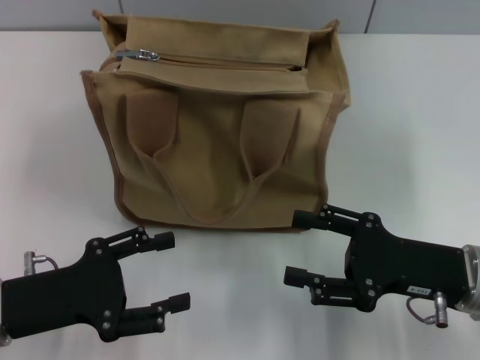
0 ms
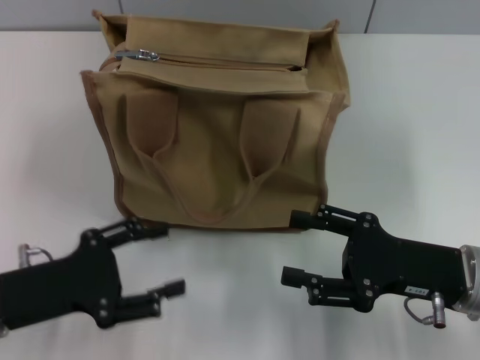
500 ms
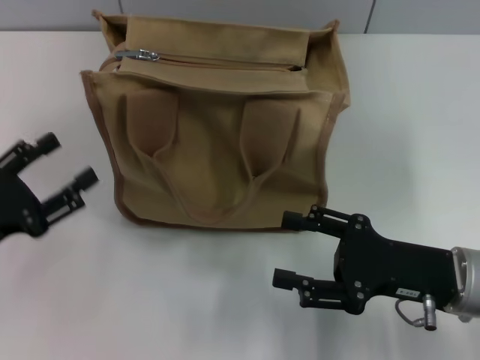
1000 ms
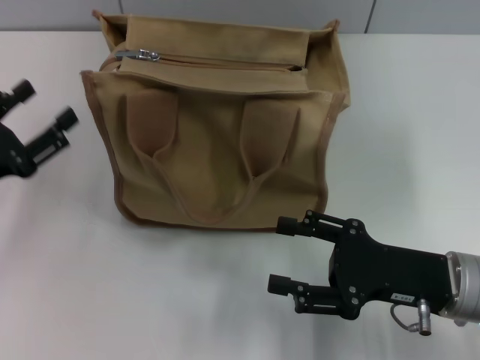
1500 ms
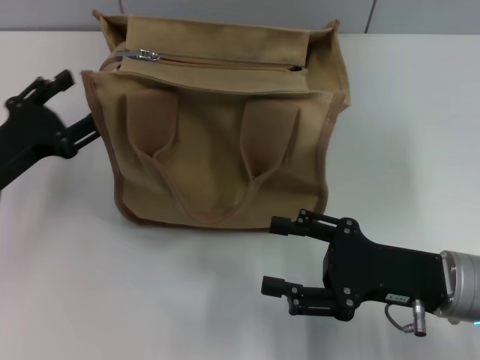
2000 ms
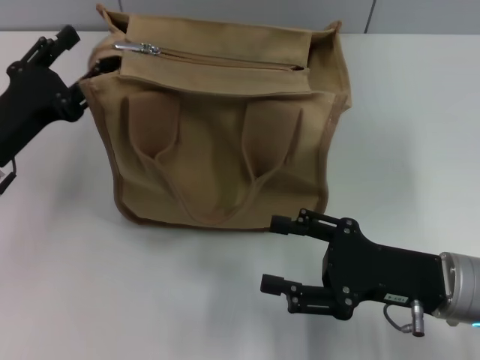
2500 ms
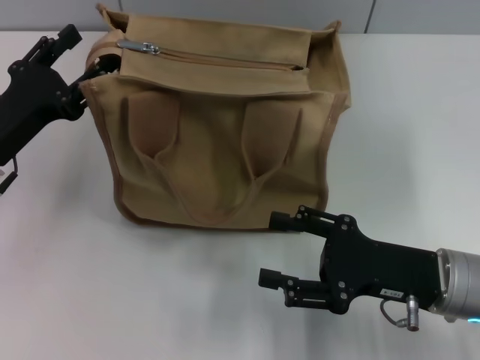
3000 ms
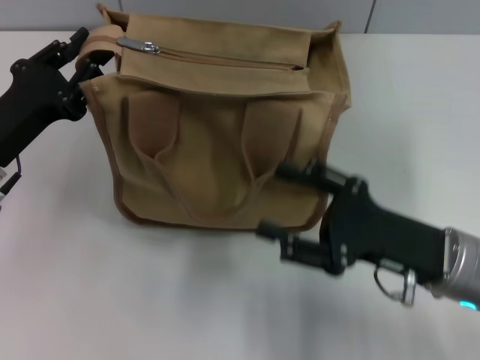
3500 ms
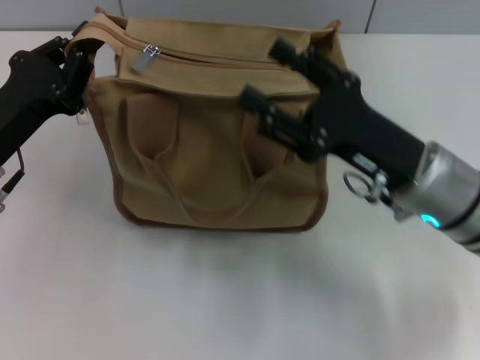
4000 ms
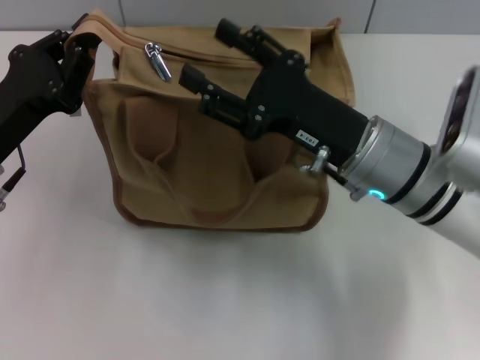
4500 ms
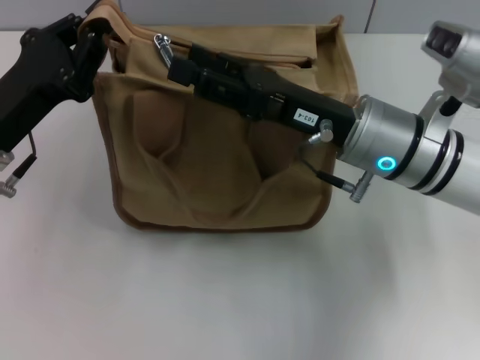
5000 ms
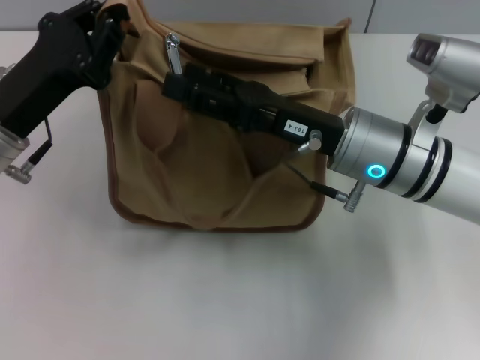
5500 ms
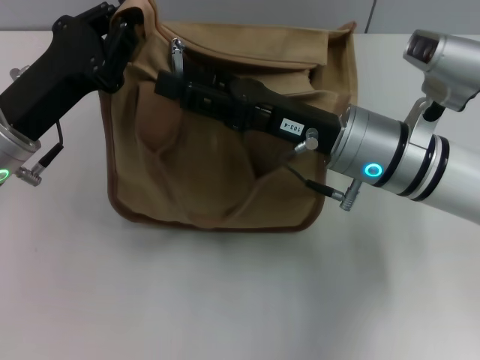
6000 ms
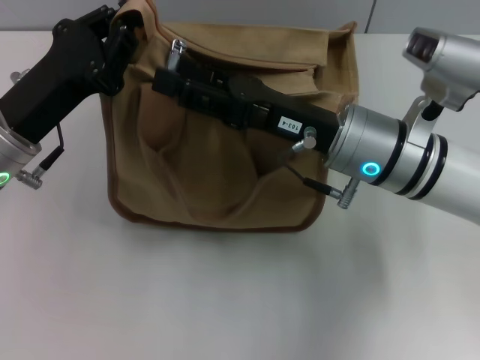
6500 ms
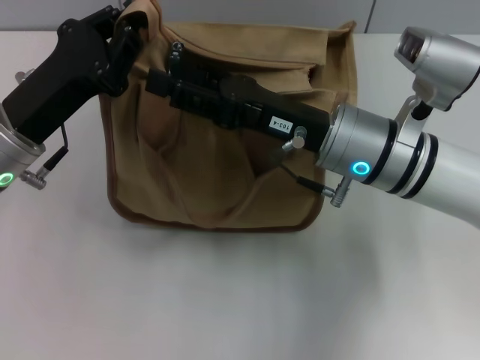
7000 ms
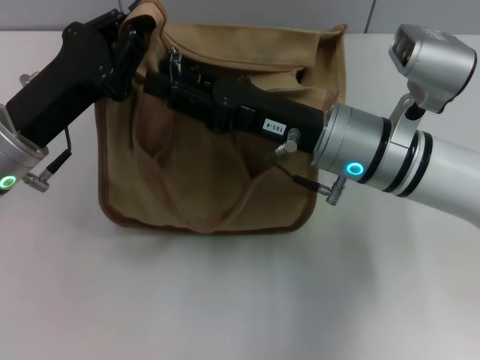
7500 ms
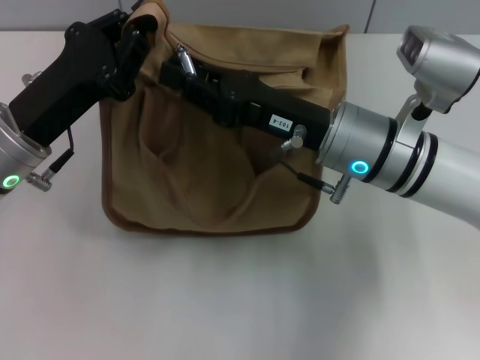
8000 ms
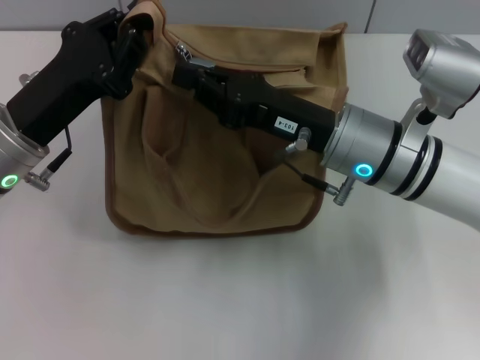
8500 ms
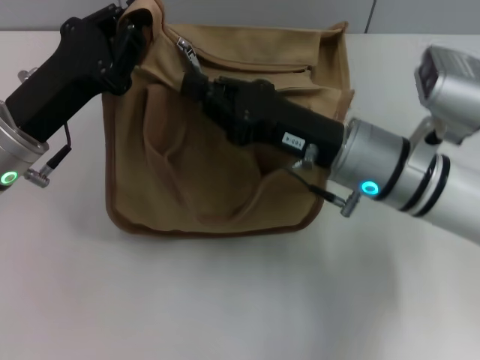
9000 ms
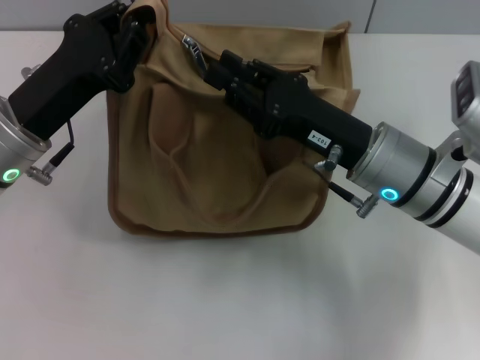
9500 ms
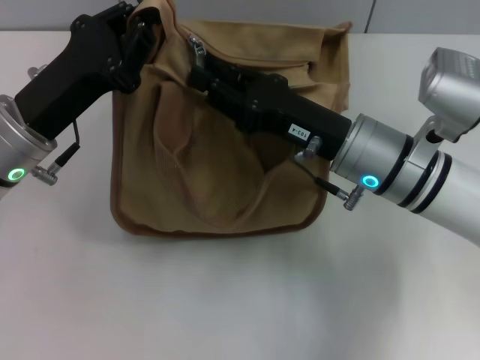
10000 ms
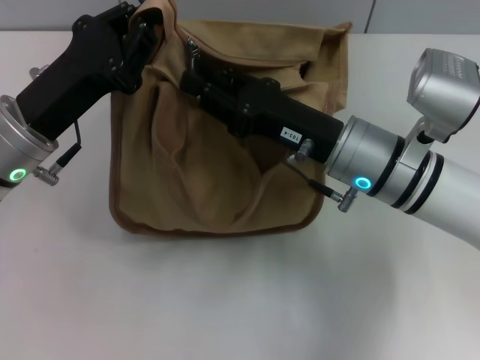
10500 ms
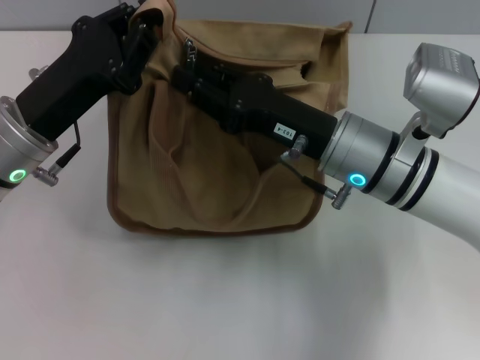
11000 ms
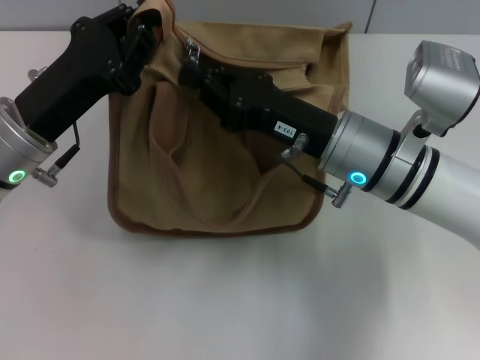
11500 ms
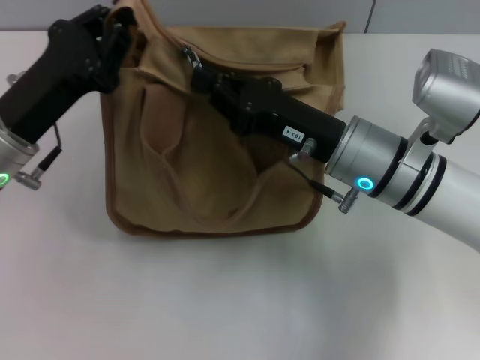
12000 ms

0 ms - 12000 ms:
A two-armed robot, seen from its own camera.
0 ms - 2000 ms: The left gripper heads forward, covering roughly 10 cm.
2000 ms - 4000 ms: The right gripper travels forward by approximately 5 cm. The left gripper closes up.
4000 ms - 6000 ms: The right gripper shifts some 5 cm to the left.
6000 ms - 8000 ms: The right gripper closes its fingers.
8000 ms - 10000 ms: The right gripper closes, then opens again.
10000 ms - 12000 ms: The right gripper closes.

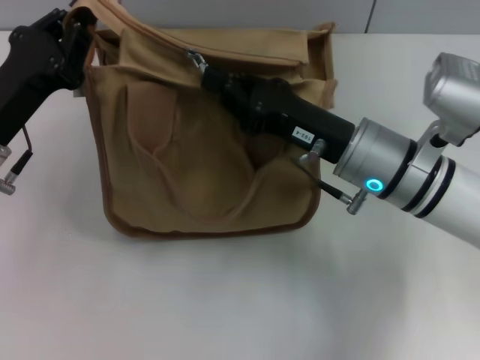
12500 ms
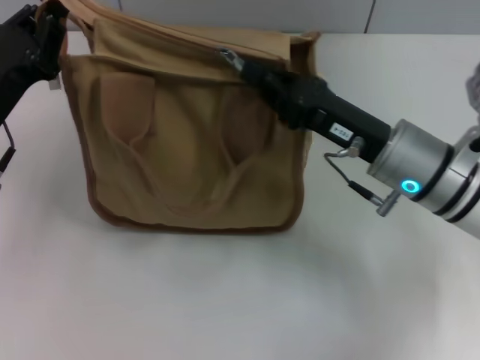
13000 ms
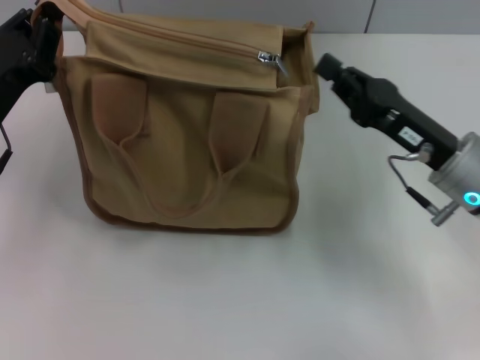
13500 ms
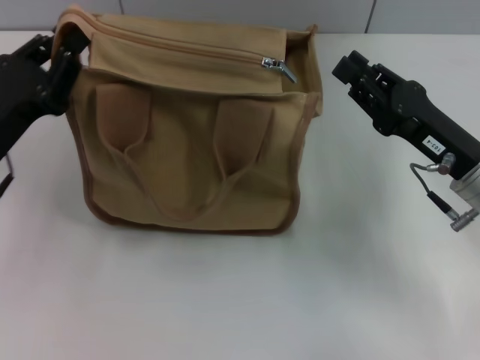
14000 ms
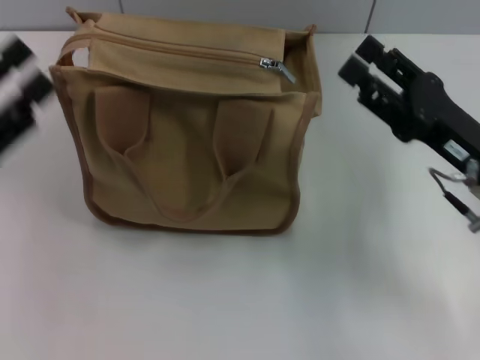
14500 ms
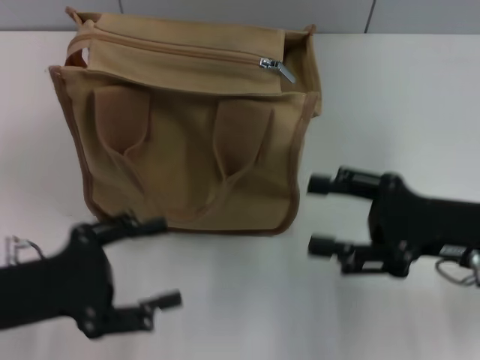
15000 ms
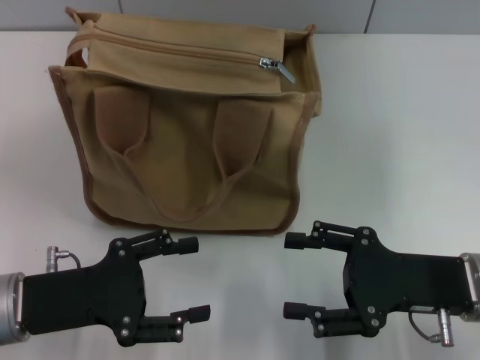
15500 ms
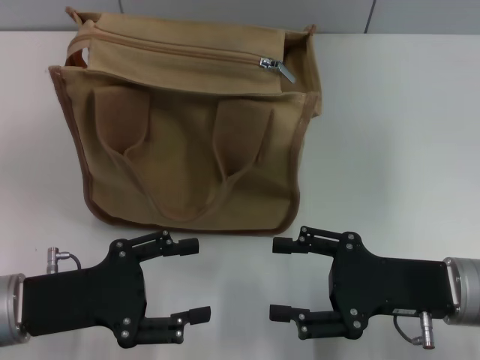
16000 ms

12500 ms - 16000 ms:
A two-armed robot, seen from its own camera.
Step, 13500 ms - 14000 ms: Grab the zipper with your left hand.
12500 ms - 14500 ms: The right gripper goes about 10 cm to the right, and opens up, while the left gripper is displaced backward and to the left by some 10 cm, and opens its fingers.
14500 ms - 16000 ms: The right gripper is displaced backward by approximately 5 cm, while the left gripper shifts some 10 cm to the right and downward, and opens.

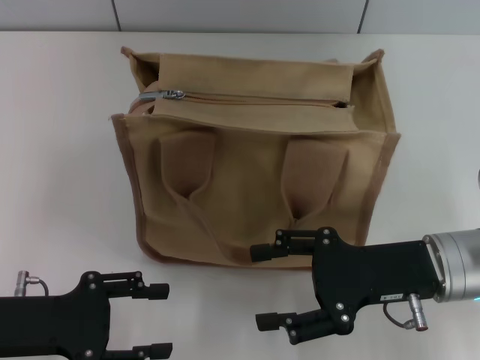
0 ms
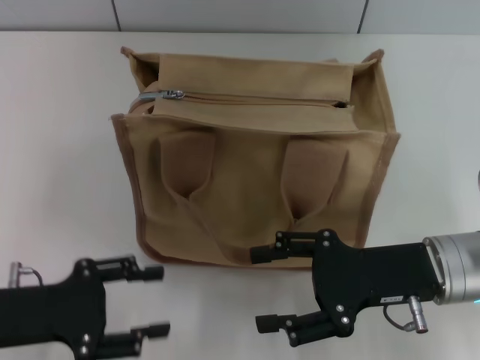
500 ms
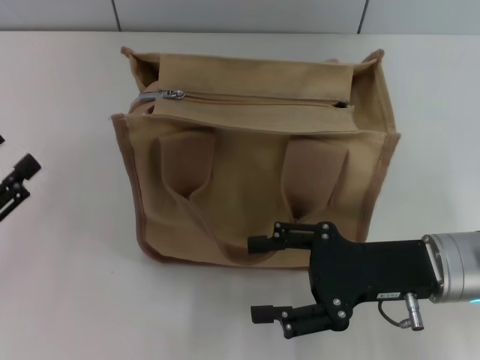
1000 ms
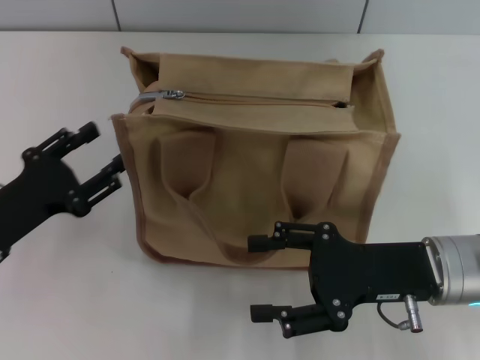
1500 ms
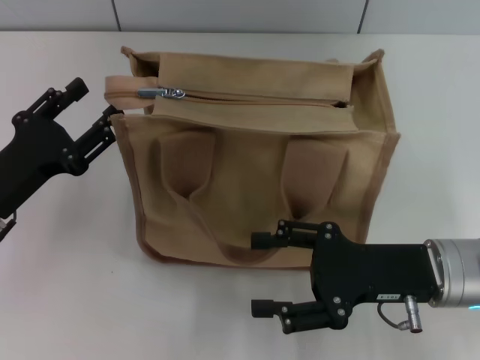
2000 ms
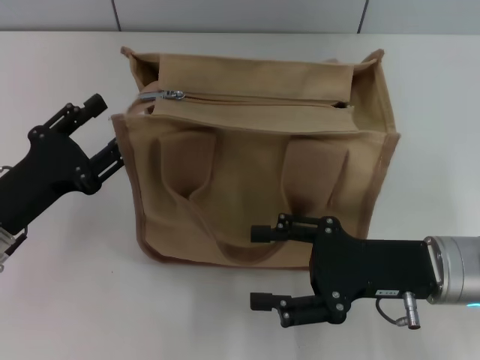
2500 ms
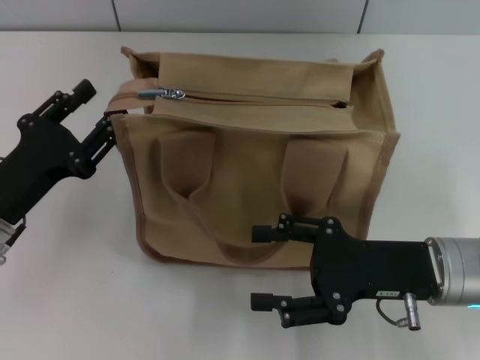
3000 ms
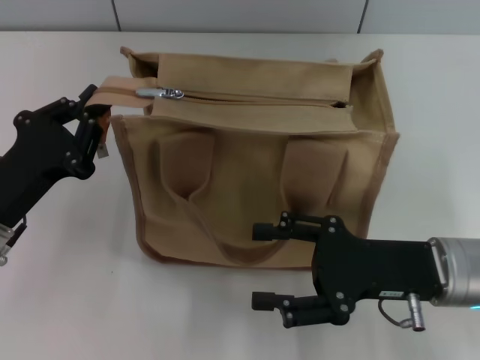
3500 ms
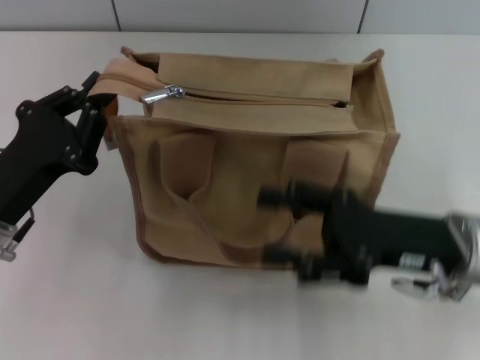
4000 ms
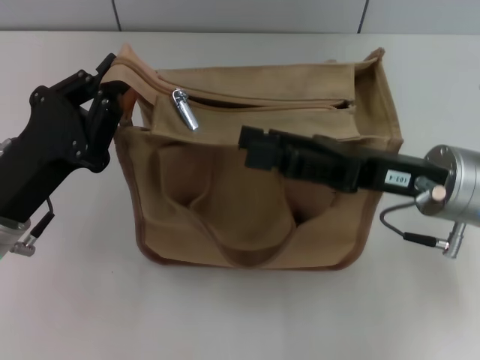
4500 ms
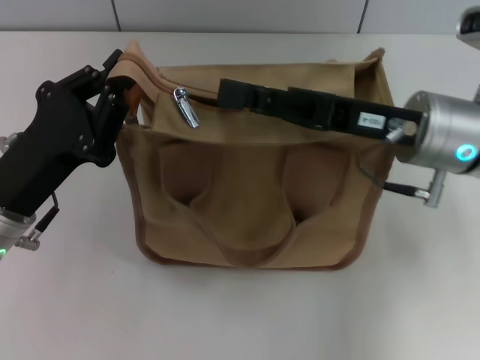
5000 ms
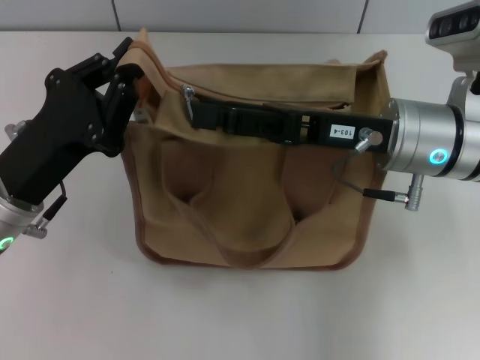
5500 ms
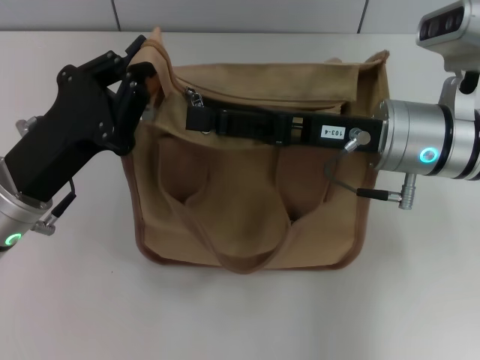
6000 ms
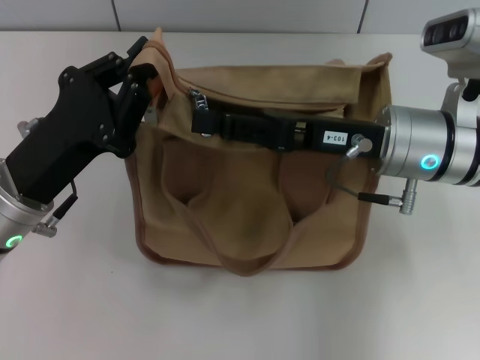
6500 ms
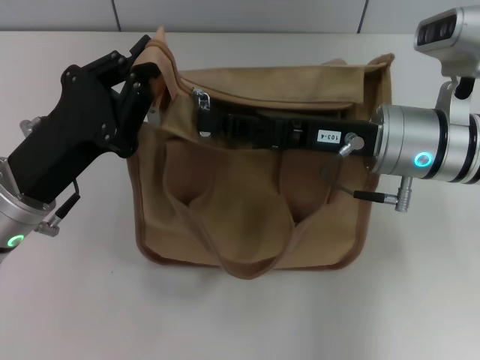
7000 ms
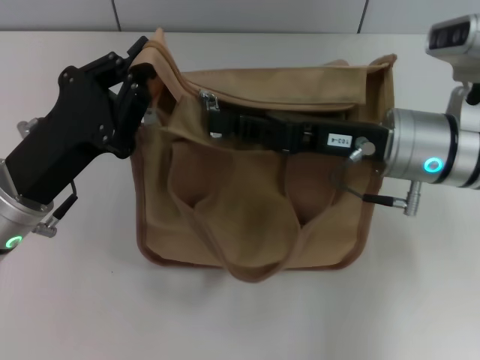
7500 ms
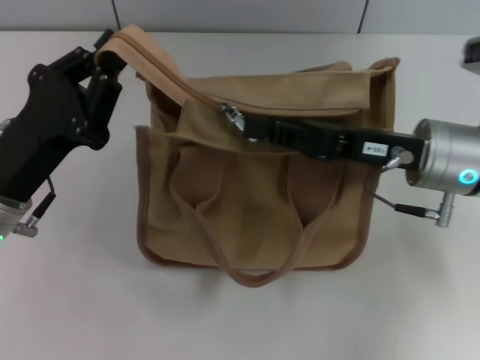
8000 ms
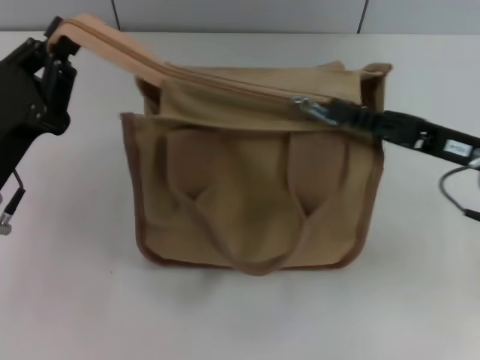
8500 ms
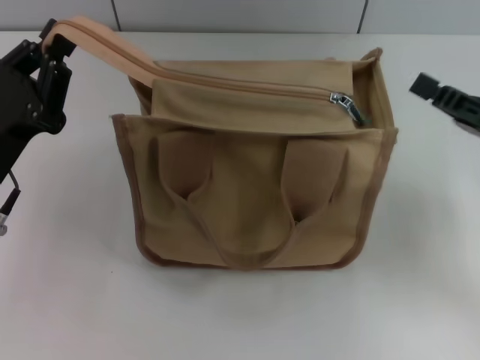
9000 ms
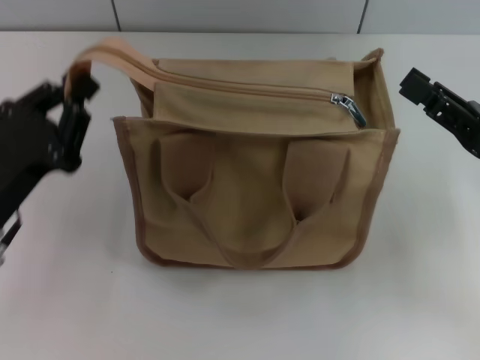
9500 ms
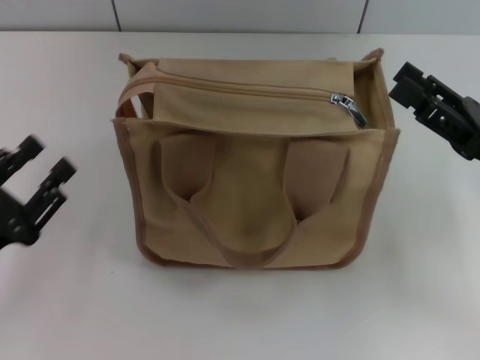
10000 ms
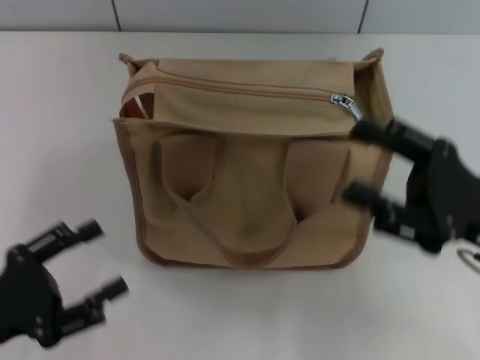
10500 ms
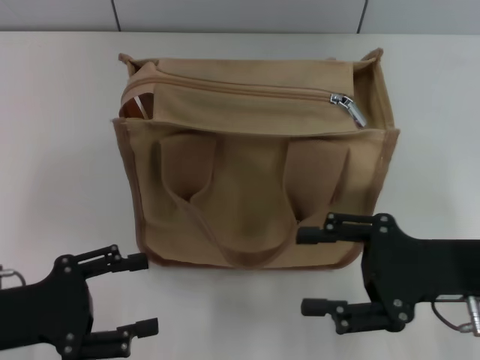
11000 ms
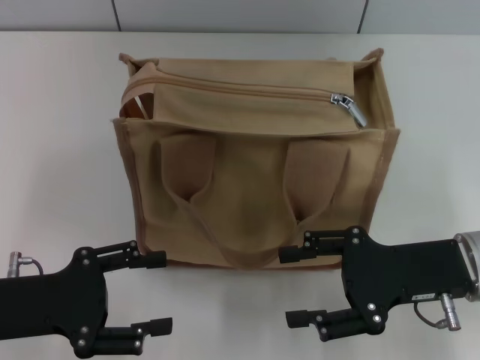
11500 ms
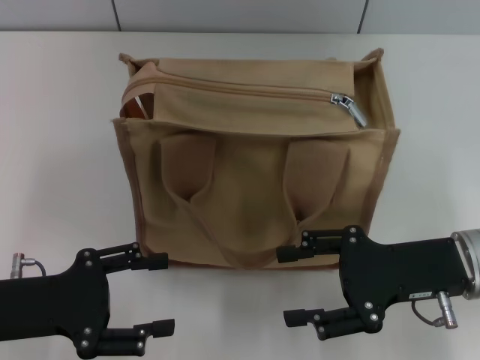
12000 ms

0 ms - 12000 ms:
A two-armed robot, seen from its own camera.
Step, 0 ms - 8500 ms: Pull up the zipper with your right hand.
Step, 9000 ms - 9500 ms: Grab the zipper with your left hand.
0 ms - 2000 ms: The left gripper shifts about 5 cm forward.
2000 ms - 4000 ms: The left gripper closes up.
4000 ms - 6000 ms: The right gripper is displaced forward and to the left by roughly 10 cm.
6000 ms - 8000 ms: The right gripper closes.
8000 ms - 10000 ms: The left gripper moves backward and to the left, about 10 cm, and opens its fingers, while the right gripper heads to the right and backward, covering some 10 cm, and opens up.
10000 ms - 12000 ms: The right gripper heads to the left, covering approximately 5 cm, while the left gripper opens its fingers.
